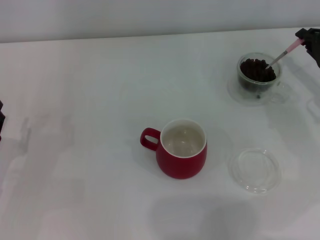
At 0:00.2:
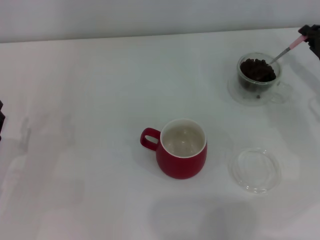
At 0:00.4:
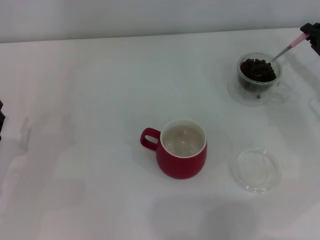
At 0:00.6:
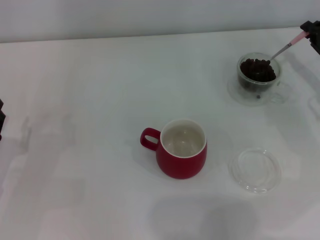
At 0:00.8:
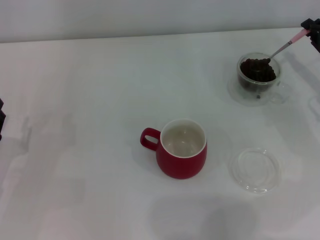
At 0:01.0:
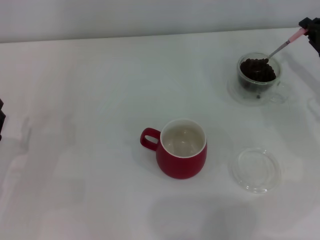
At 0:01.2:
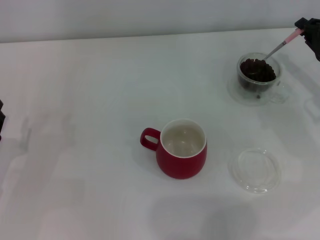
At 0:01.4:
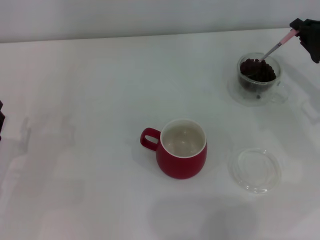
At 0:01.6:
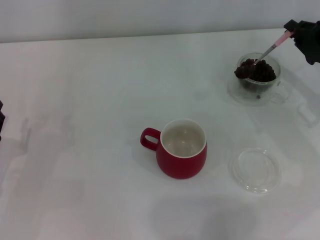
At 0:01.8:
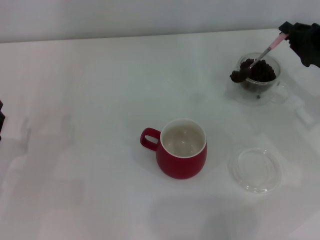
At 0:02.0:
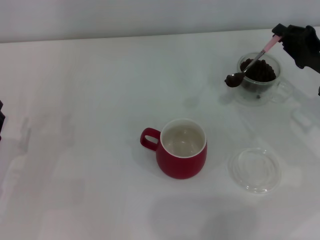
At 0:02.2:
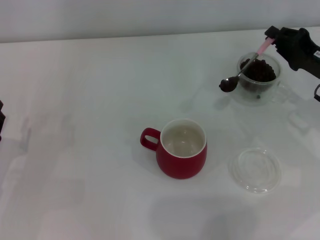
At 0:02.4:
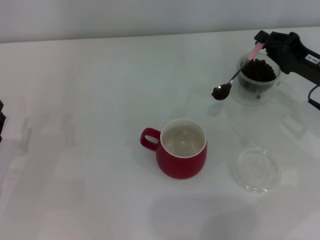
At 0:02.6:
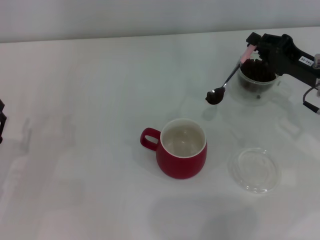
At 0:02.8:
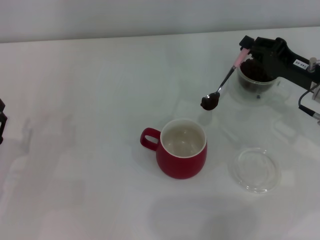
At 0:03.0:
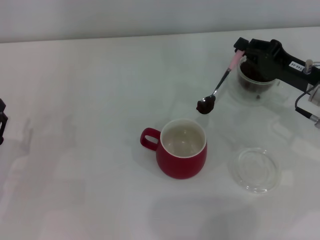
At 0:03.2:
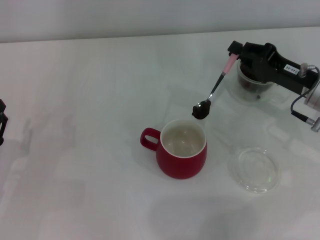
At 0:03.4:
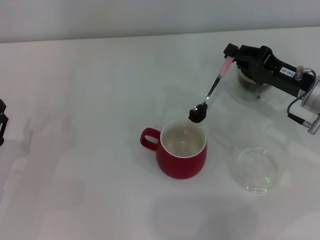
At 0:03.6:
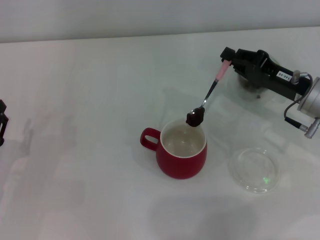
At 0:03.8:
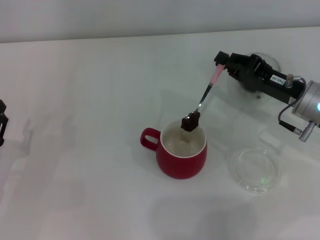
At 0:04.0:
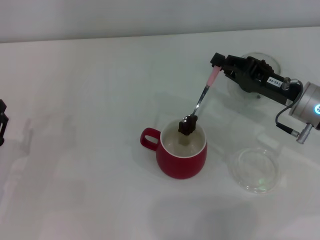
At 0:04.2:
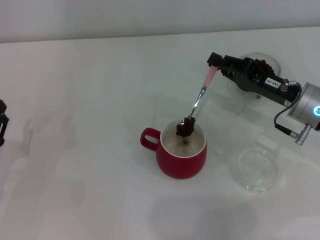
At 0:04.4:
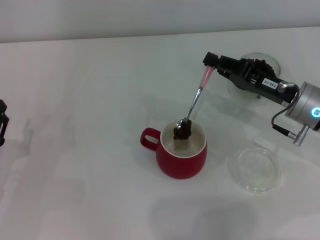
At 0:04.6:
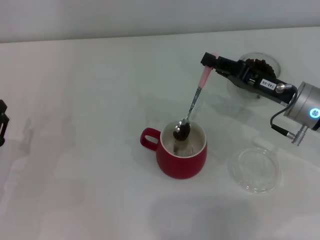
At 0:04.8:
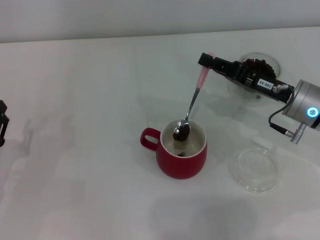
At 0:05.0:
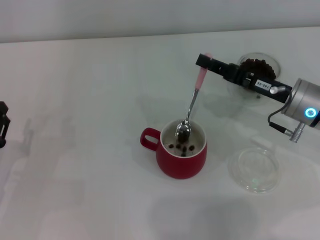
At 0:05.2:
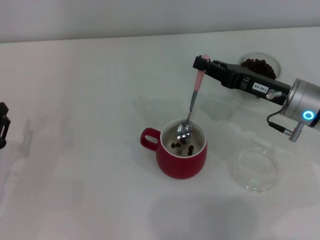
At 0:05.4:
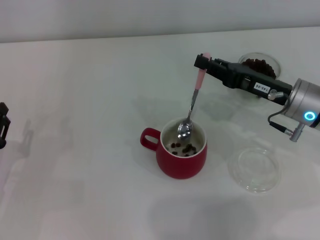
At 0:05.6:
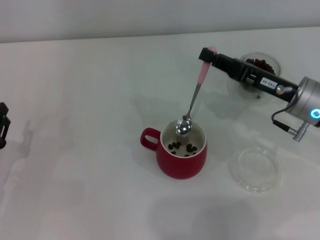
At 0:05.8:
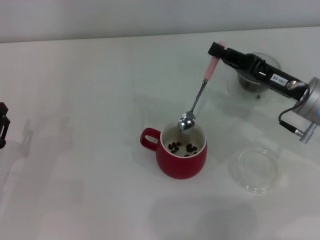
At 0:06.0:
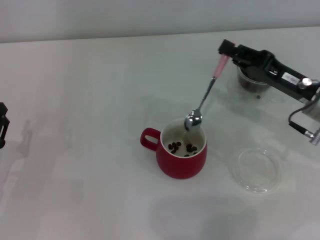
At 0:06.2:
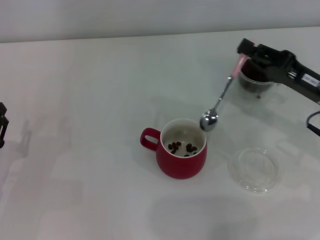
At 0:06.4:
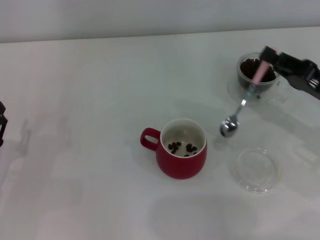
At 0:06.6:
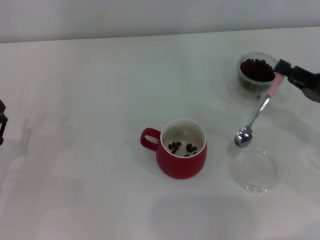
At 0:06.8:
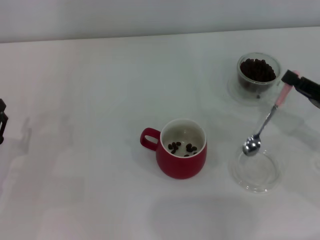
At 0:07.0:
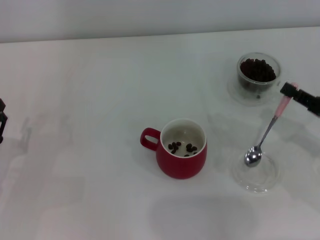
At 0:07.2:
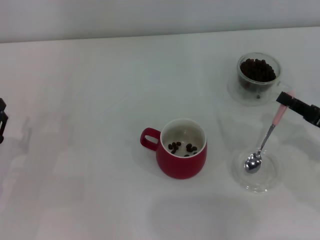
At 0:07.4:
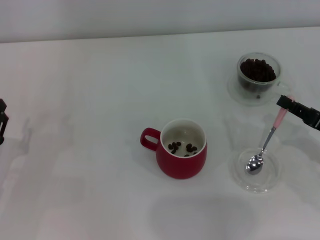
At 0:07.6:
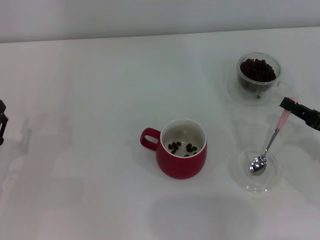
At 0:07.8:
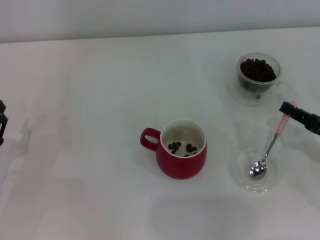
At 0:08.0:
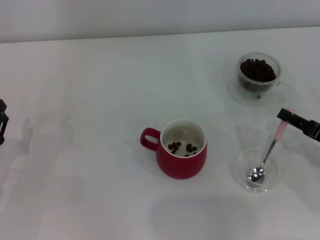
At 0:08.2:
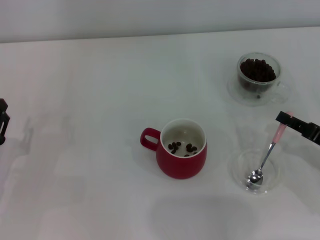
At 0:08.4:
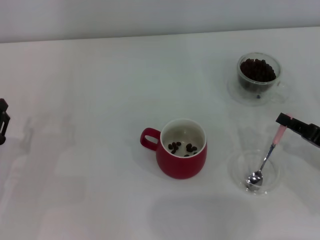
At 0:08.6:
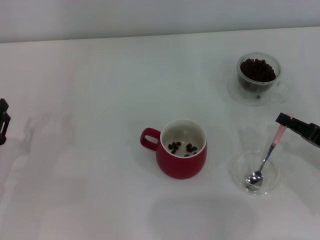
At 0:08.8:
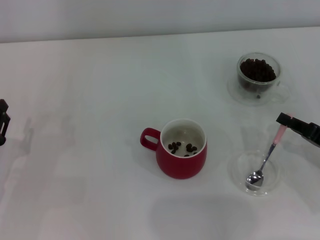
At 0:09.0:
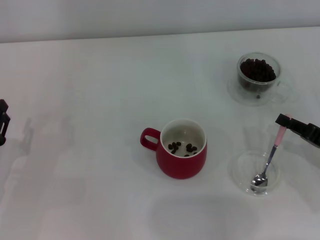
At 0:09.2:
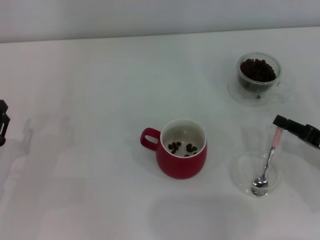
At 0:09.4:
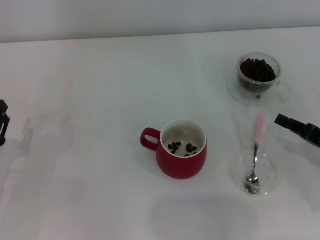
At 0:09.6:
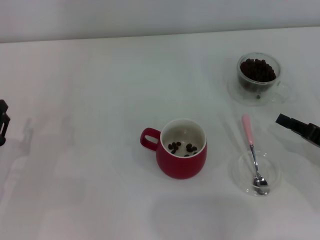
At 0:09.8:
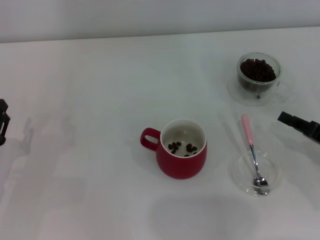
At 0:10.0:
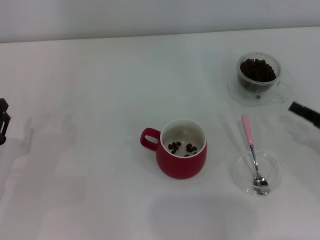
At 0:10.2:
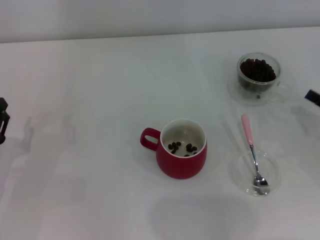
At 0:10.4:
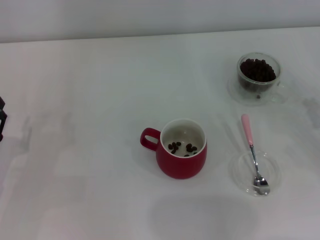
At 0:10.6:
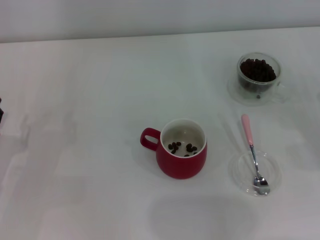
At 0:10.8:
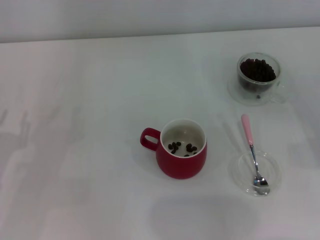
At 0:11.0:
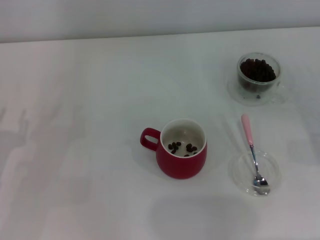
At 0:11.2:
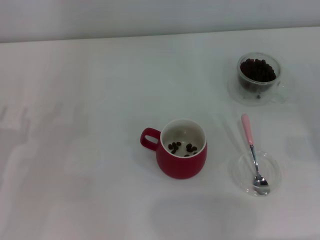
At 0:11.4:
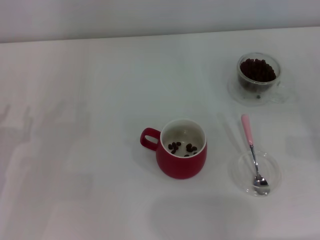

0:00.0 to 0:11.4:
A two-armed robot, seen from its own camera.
Task of the whole recording: Use a pink spoon to take out the coffee beans from the glass and pour them into the red cup.
Step, 0:00.0 to 0:05.8: Scoop a spoonful of beans into the cup with the right gripper.
Step, 0:06.0 to 0:09.6: Place the spoon back in its original place with the right gripper.
0:00.0 to 0:01.4: The grippers move only a little.
0:01.4 to 0:02.8: The right gripper is displaced to the left by about 5 cm.
0:02.8 to 0:04.2: There are only small adjustments of the grippers.
0:05.6 to 0:07.2: The right gripper moves to the right and backward, some 15 cm.
0:07.2 to 0:10.0: There are only small adjustments of the grippers.
